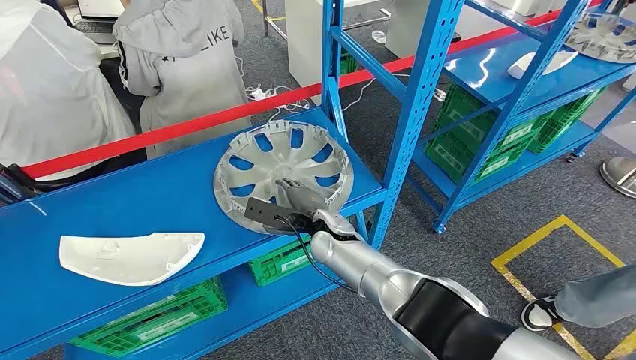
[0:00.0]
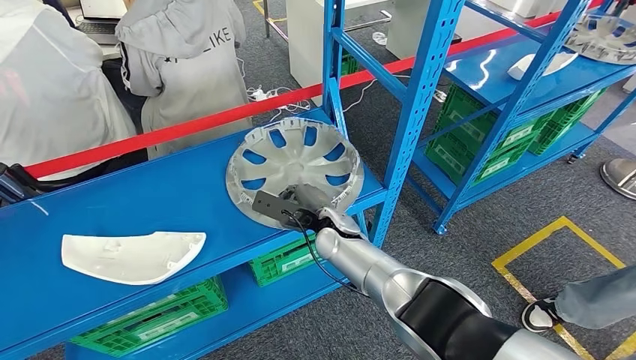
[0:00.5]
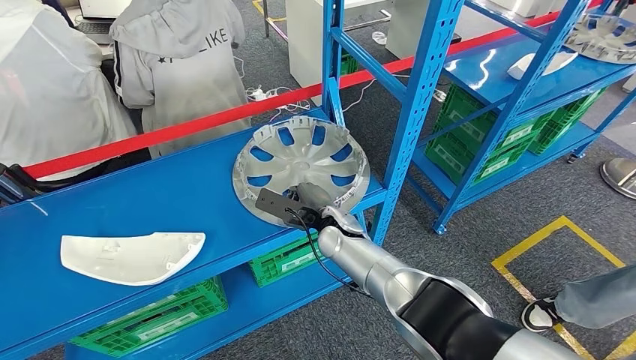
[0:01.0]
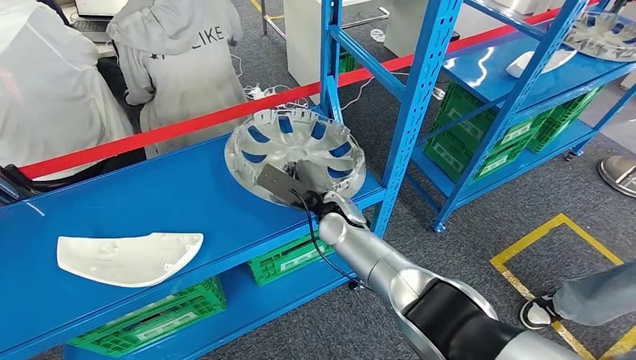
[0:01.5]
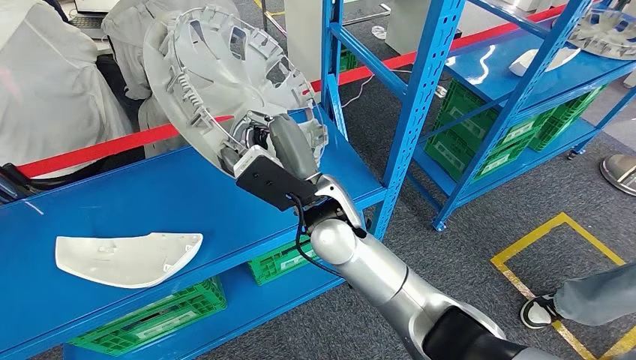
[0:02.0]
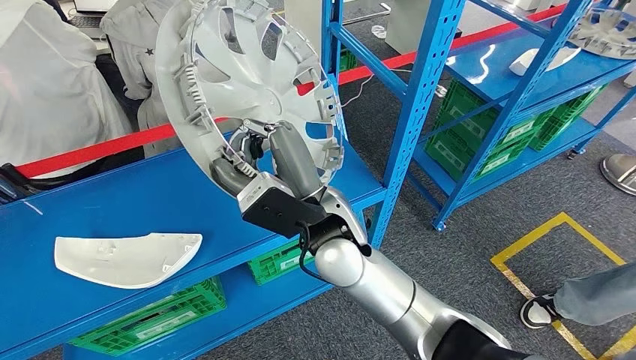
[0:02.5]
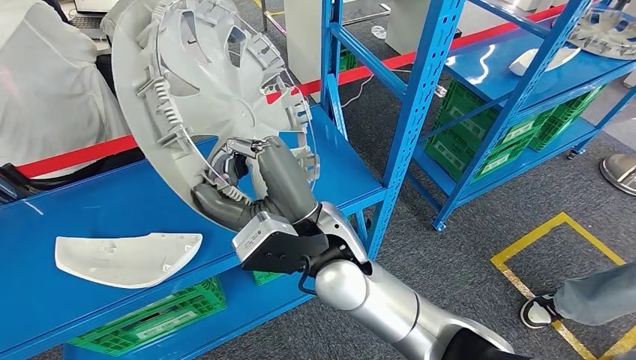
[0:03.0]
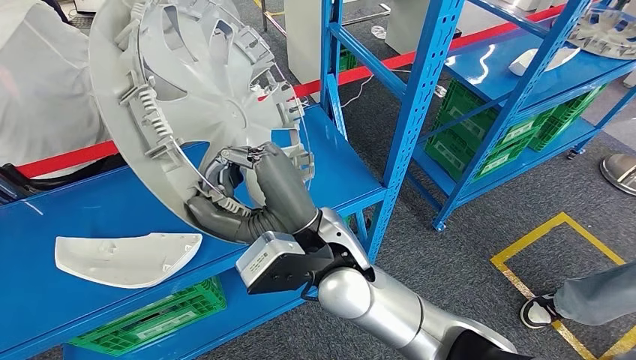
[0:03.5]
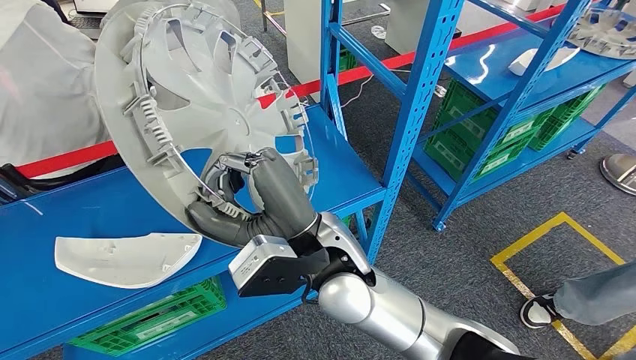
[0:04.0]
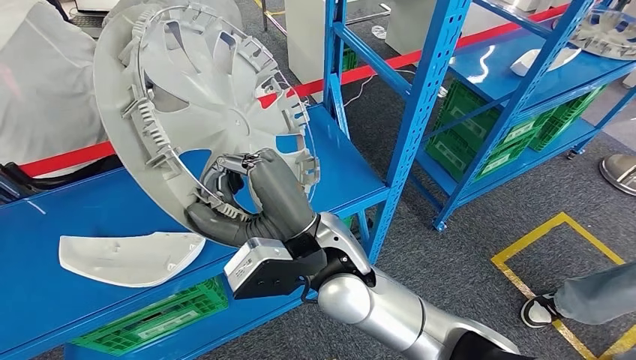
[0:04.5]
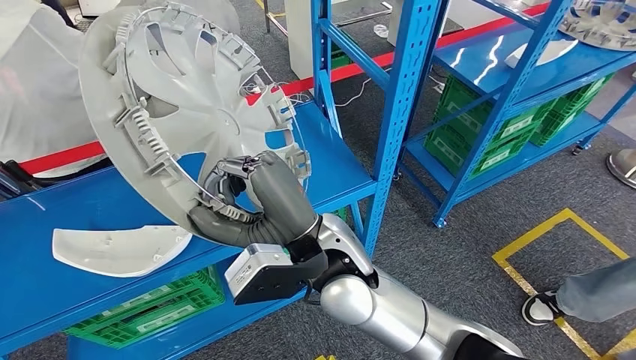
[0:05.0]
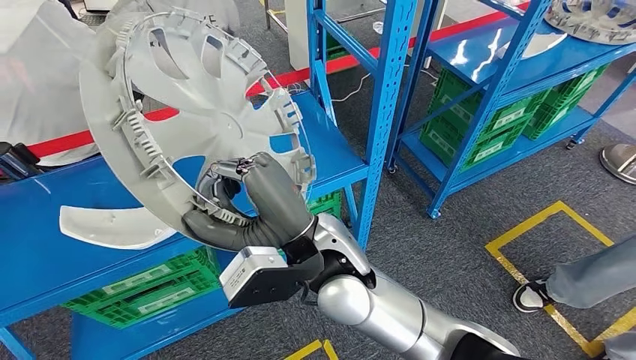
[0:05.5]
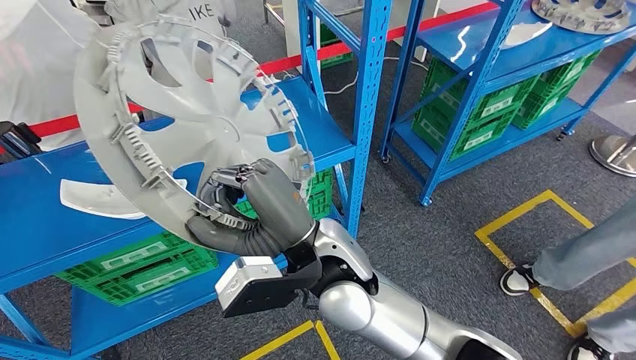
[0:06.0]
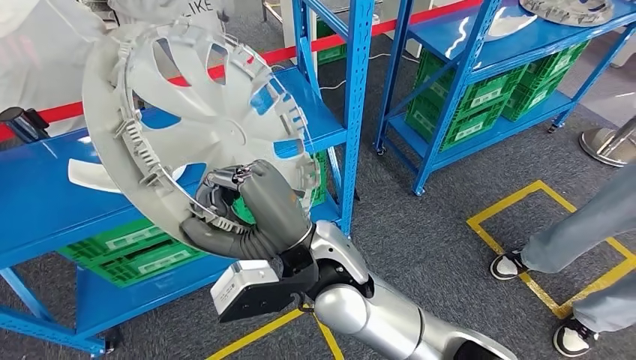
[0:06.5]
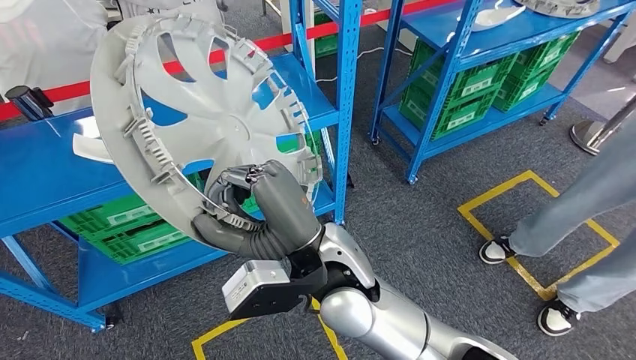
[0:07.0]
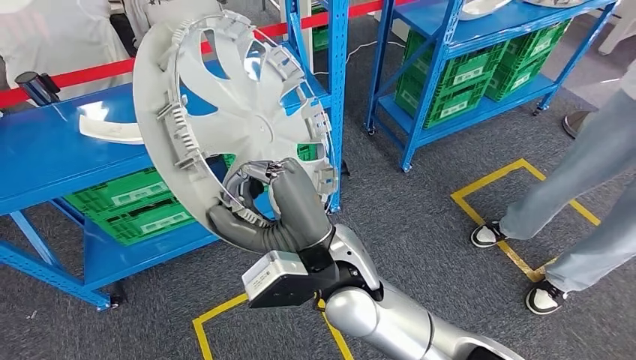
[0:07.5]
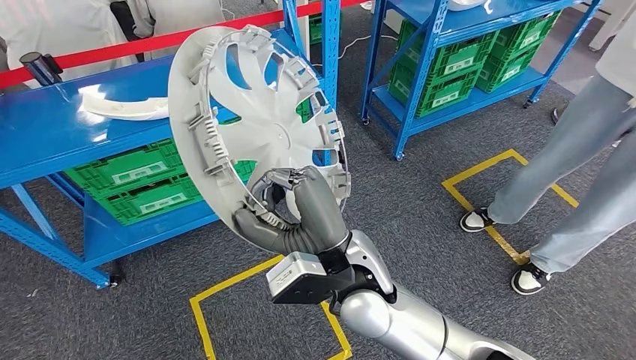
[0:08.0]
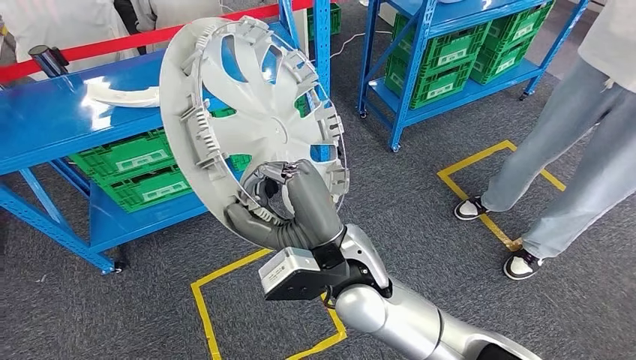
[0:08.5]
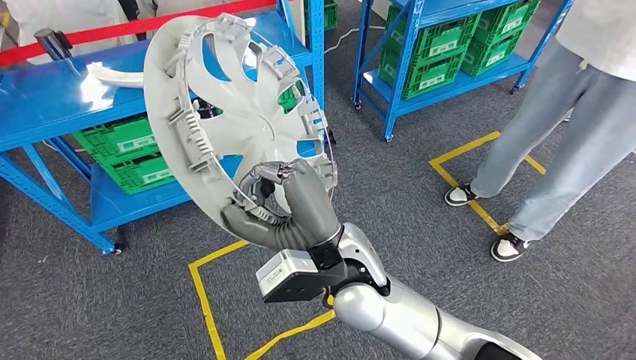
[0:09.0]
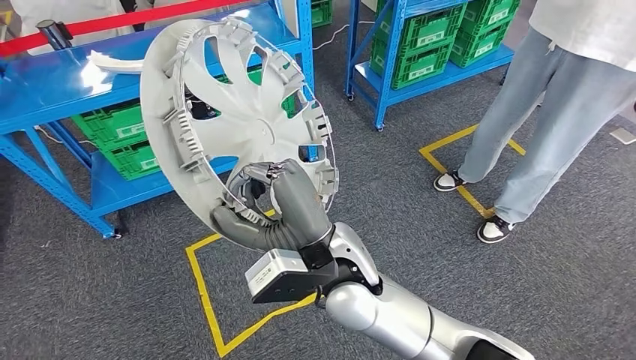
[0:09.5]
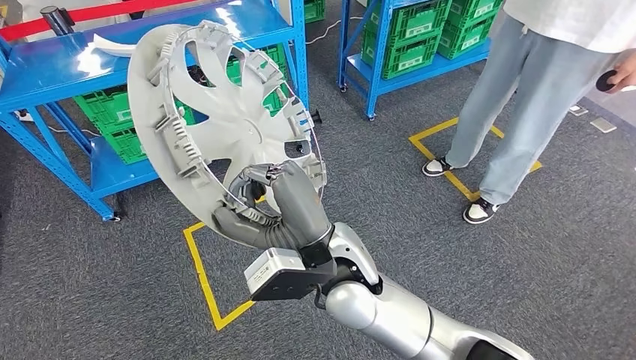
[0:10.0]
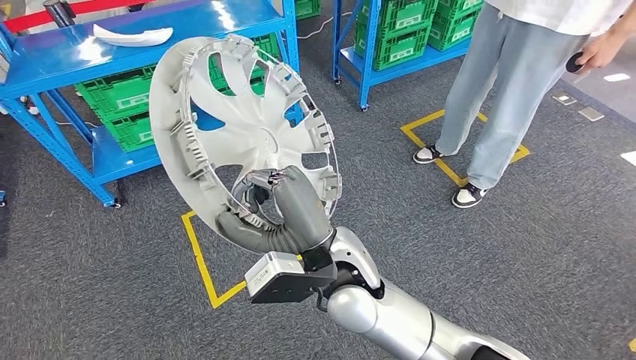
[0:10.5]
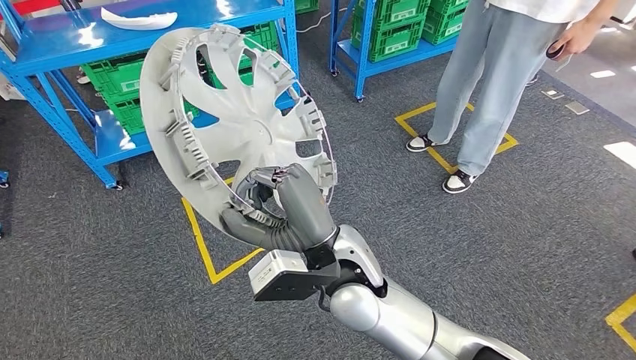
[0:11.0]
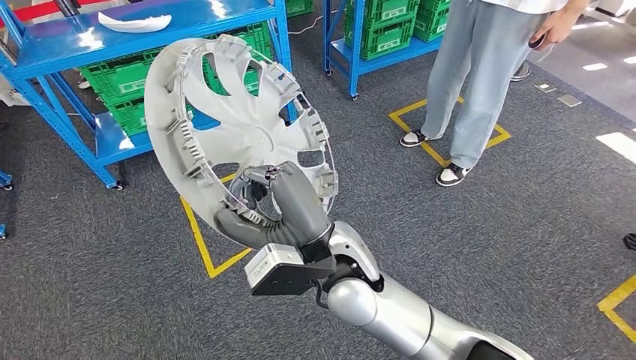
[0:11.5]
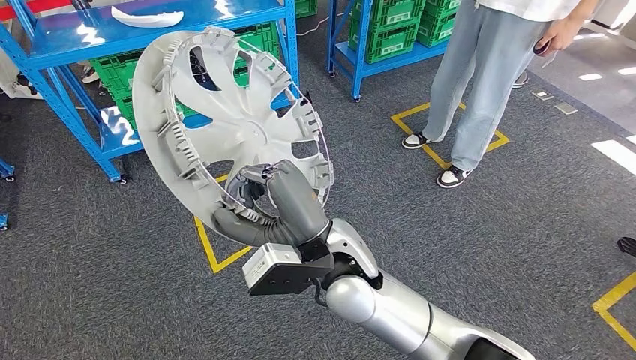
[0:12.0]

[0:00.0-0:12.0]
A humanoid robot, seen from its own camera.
Step, 0:00.0 to 0:05.0: Pick up the large material from the shelf.

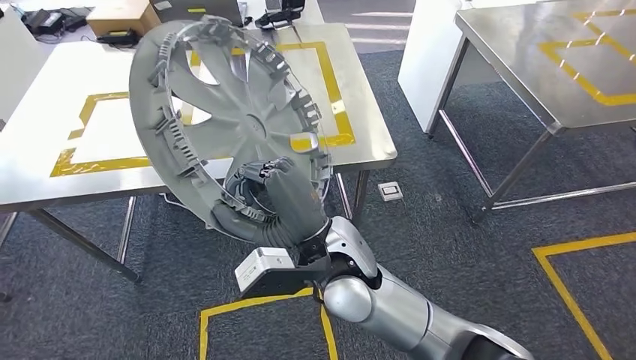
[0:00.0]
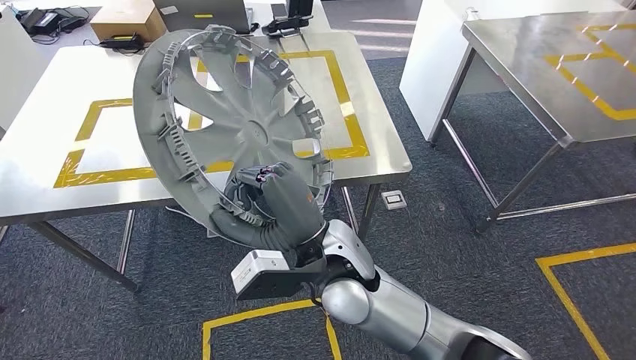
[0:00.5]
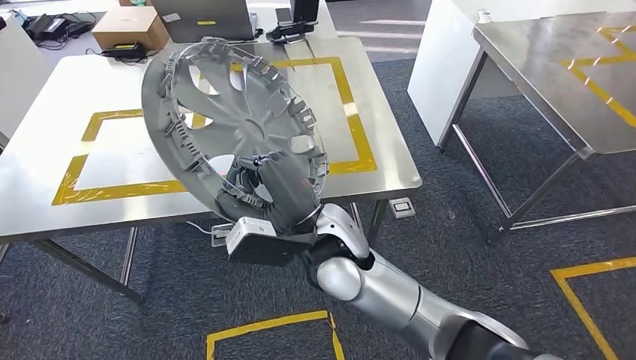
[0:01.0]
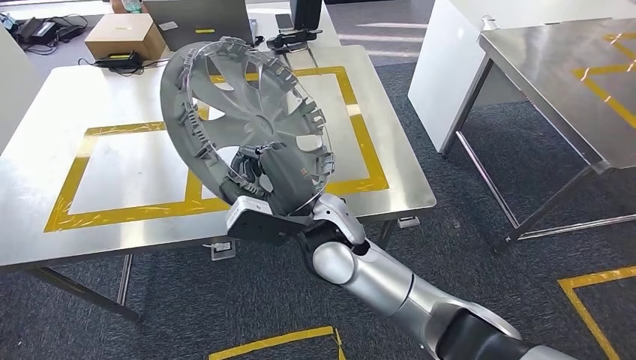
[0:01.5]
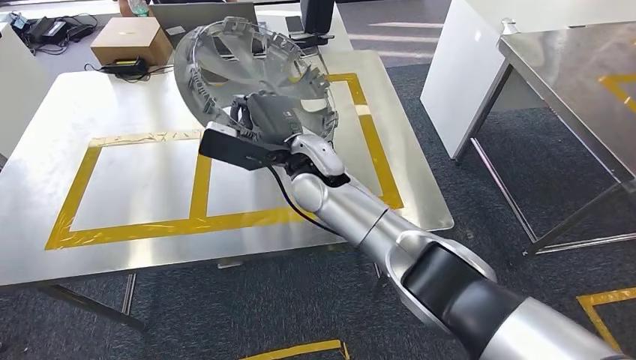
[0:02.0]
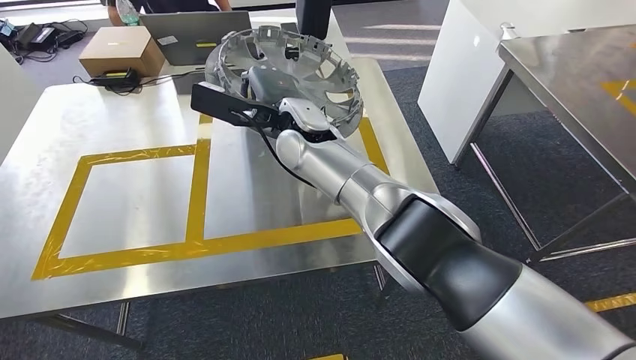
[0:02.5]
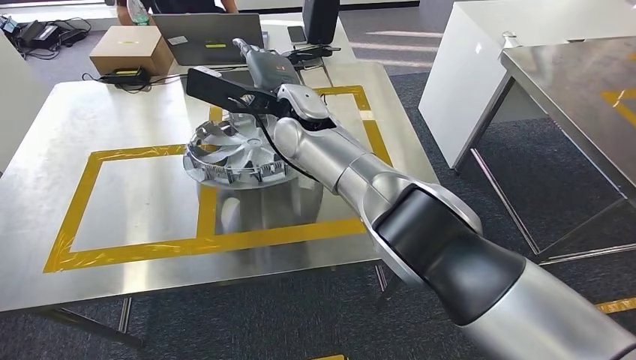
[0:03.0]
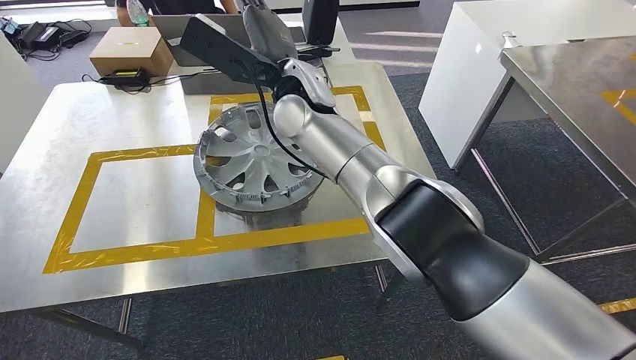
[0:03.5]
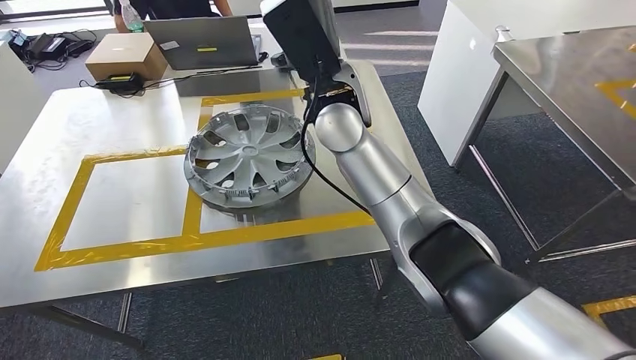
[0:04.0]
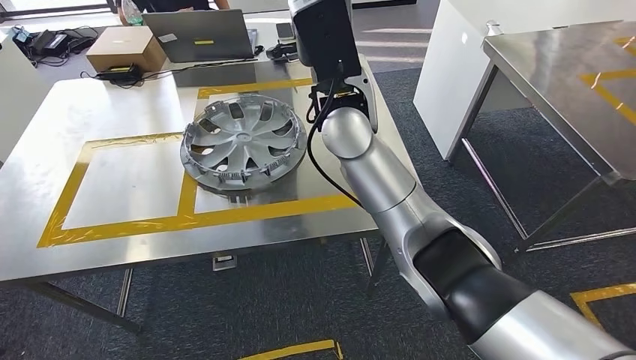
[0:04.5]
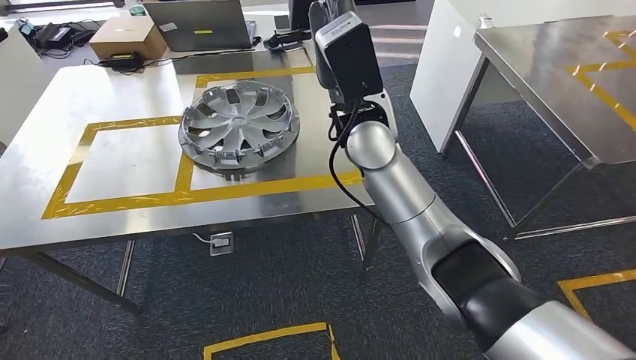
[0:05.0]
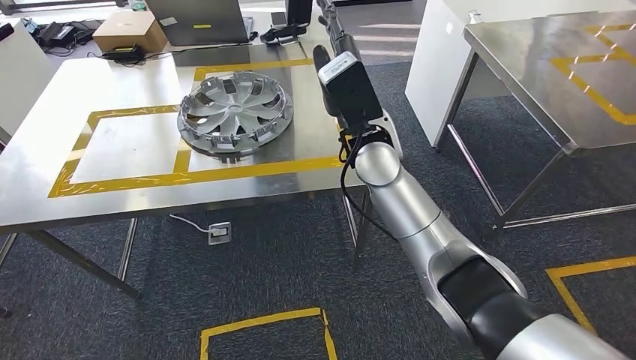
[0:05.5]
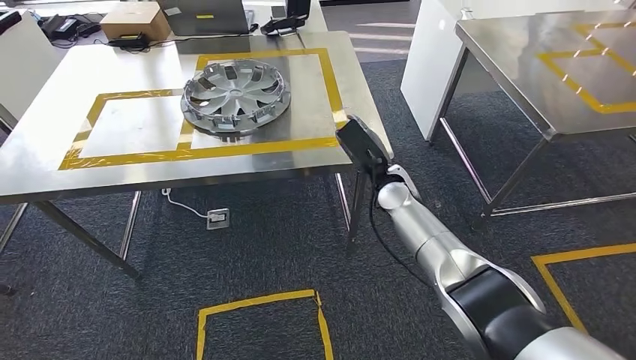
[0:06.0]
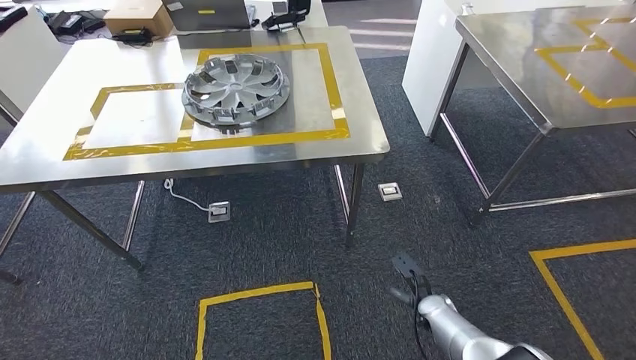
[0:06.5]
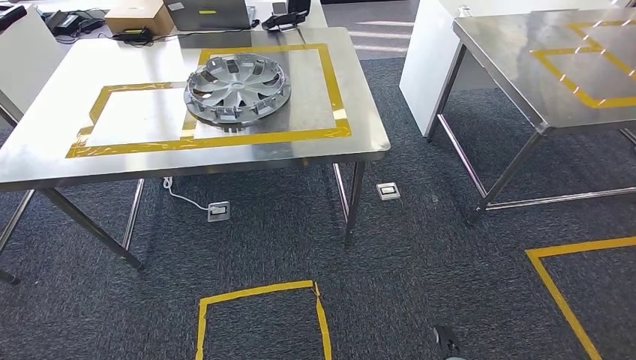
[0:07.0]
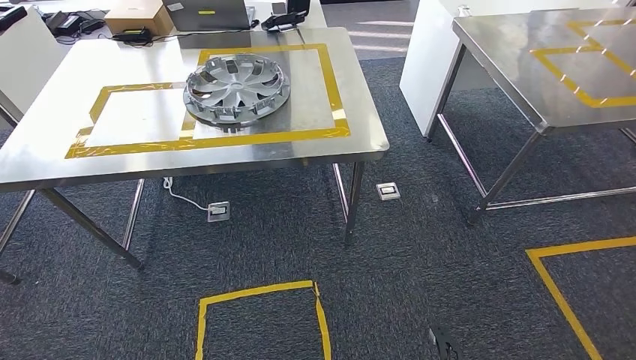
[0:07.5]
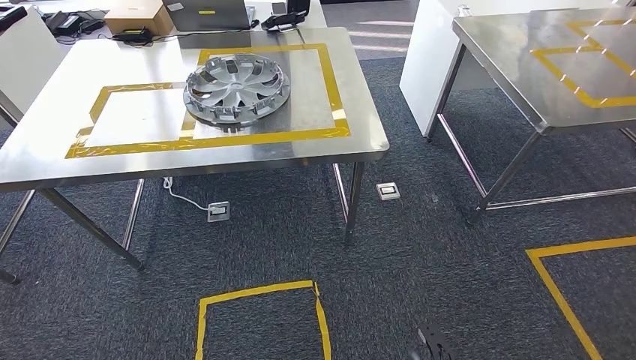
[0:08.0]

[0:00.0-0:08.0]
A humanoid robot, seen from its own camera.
Step, 0:01.0 to 0:03.5: Insert the large material into the corresponding slot on the workbench.
Step, 0:04.0 to 0:08.0: Move to the initial position of the shelf.
